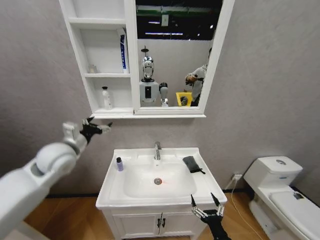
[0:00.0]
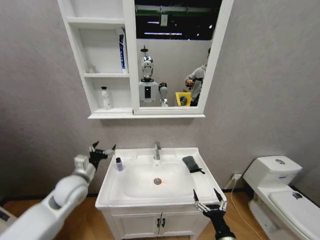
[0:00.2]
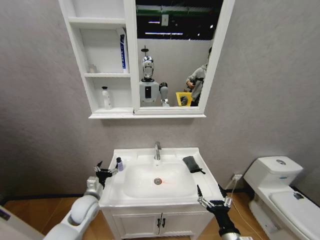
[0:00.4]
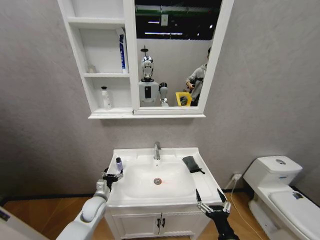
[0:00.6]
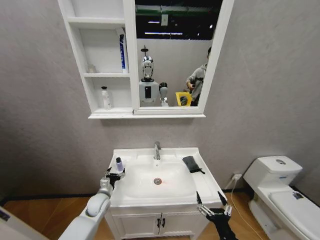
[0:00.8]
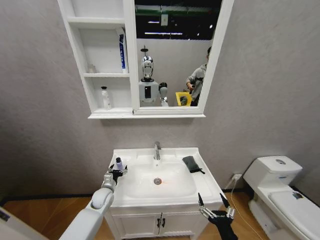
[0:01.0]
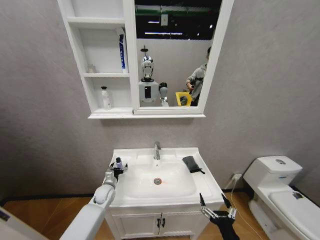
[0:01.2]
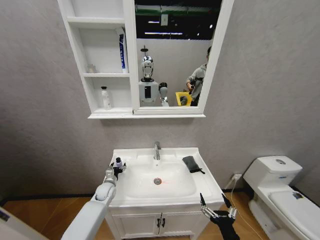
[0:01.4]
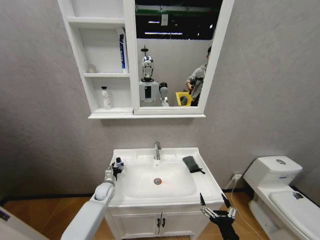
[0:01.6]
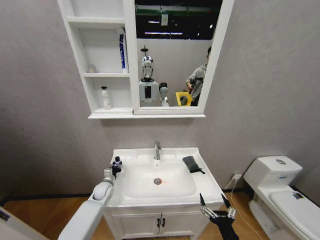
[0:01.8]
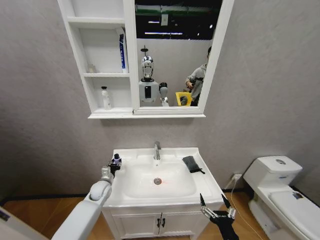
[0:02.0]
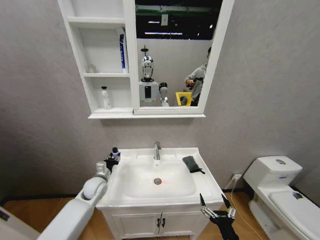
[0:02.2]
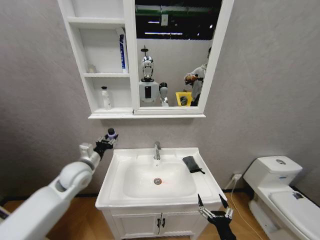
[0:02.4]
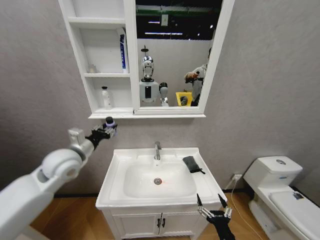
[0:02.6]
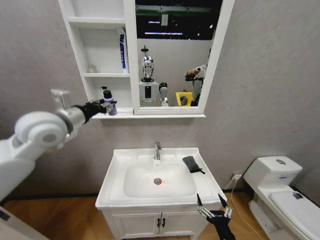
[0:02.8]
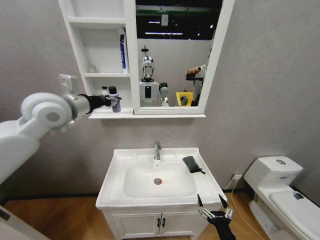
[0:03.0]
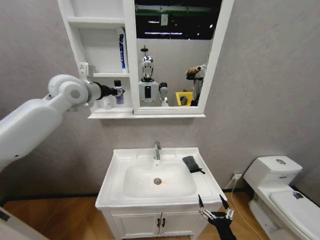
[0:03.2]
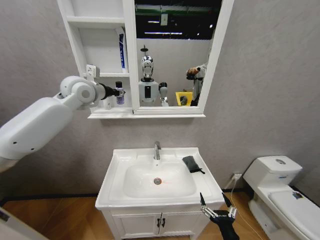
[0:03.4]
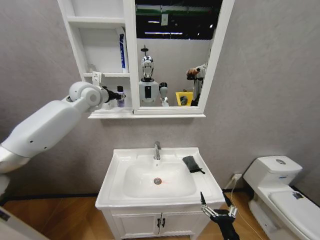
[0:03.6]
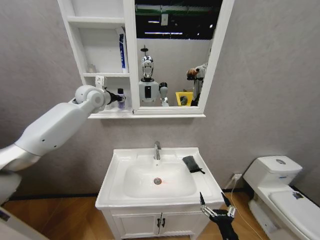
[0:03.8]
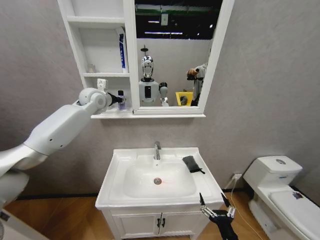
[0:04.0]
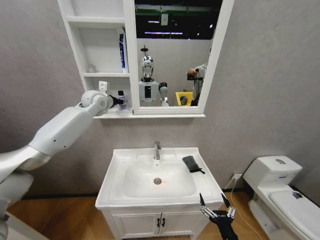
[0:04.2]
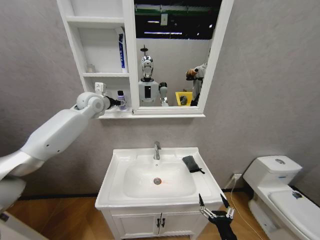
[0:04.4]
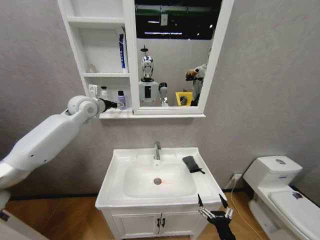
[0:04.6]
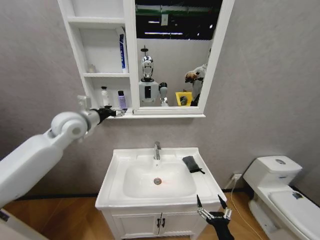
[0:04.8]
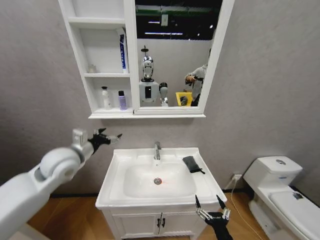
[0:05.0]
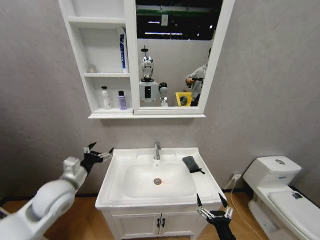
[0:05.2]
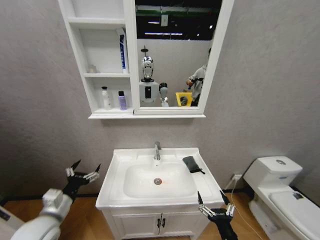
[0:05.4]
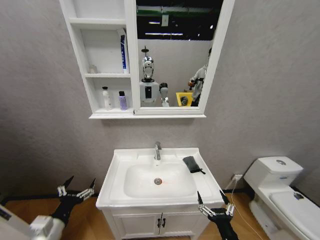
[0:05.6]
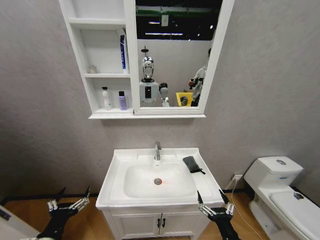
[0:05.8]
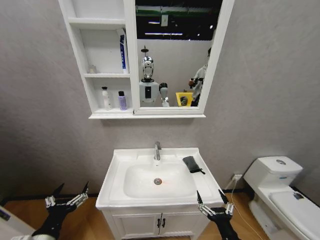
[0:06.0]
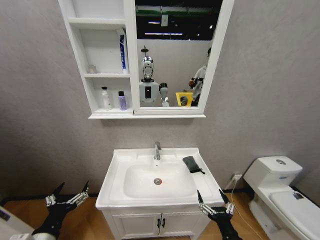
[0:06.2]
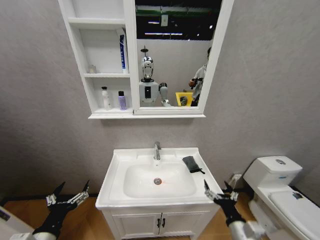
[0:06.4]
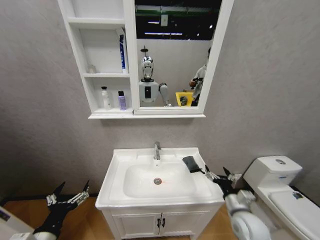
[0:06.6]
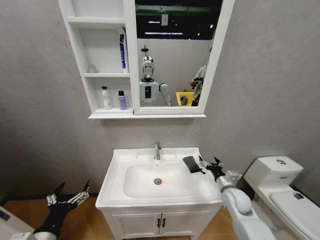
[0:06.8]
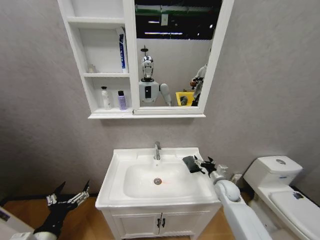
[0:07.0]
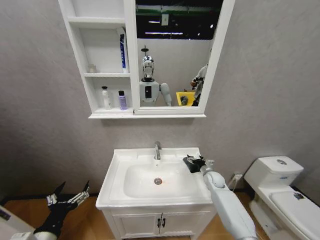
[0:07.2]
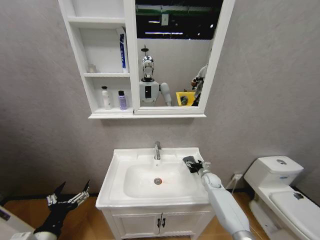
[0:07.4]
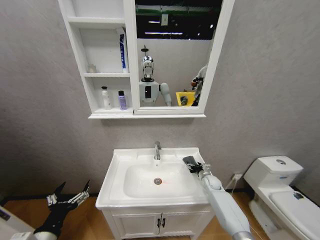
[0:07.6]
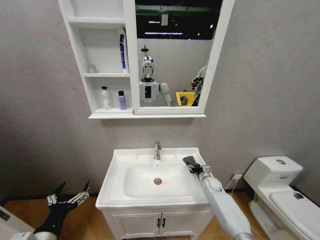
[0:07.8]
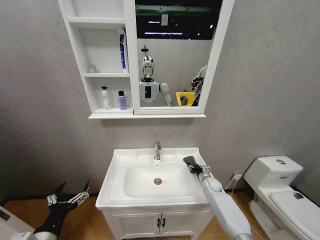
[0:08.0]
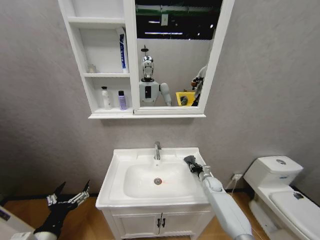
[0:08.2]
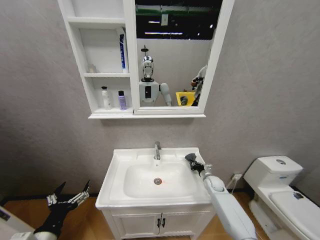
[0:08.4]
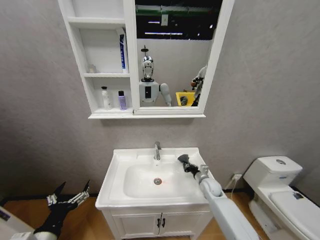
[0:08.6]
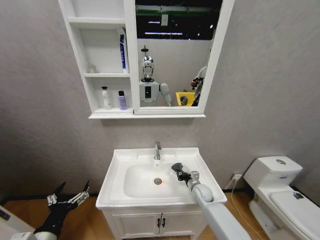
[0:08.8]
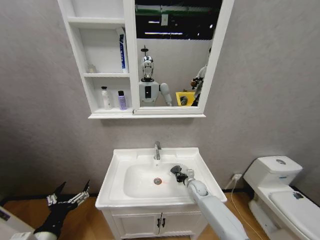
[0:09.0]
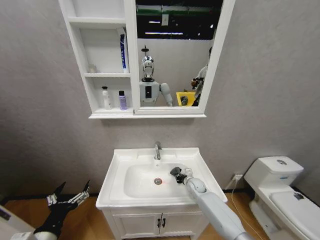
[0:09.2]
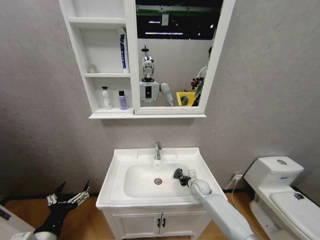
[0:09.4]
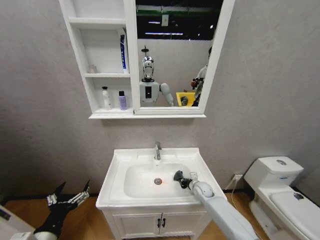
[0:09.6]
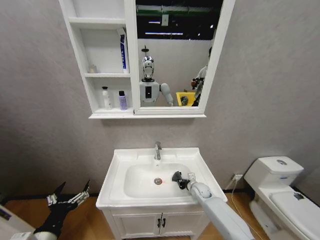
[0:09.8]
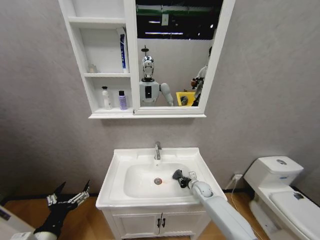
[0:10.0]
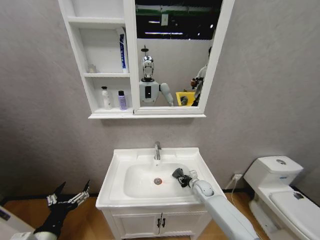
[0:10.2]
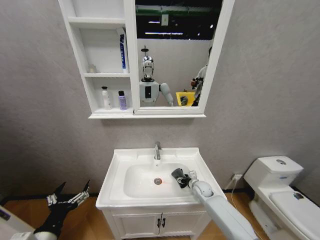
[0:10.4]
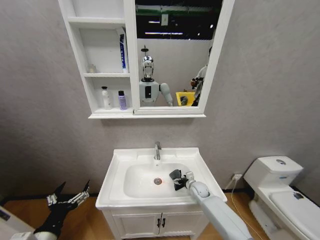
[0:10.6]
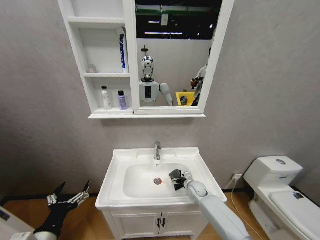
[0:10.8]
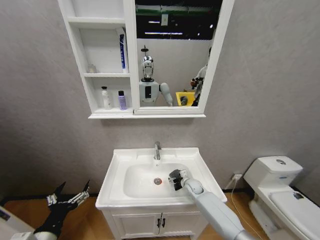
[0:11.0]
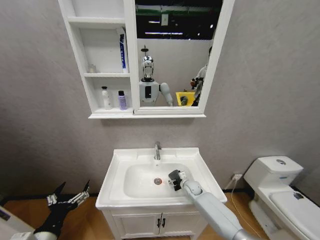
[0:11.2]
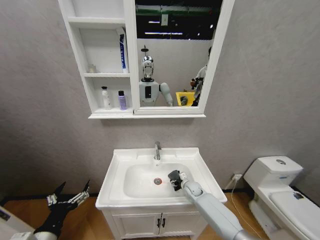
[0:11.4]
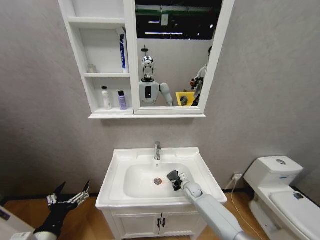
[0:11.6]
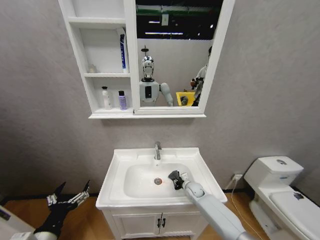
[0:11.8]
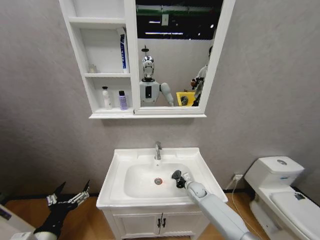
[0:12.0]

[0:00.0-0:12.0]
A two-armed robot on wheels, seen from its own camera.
Task of the whole recording: Move facial cleanser and shampoo from washbasin to cabinet, then wipe washbasin with towel.
0:00.0 to 0:01.6: The left gripper moves downward, roughly 30 cm, and closes up.
0:01.6 to 0:03.0: The left gripper goes about 50 cm upward.
0:03.0 to 0:04.4: The left gripper shifts some 15 cm forward, and opens its fingers.
0:04.4 to 0:06.0: The left gripper moves backward and downward, roughly 50 cm, and opens its fingers.
0:06.0 to 0:07.6: The right gripper is displaced forward by approximately 40 cm.
0:07.6 to 0:09.0: The right gripper heads to the left, covering approximately 10 cm, and closes.
0:09.0 to 0:10.4: The right gripper opens up.
0:10.4 to 0:12.0: The right gripper closes.

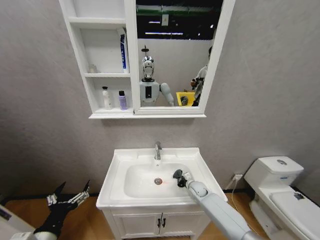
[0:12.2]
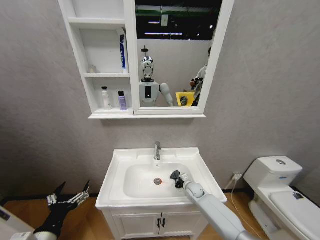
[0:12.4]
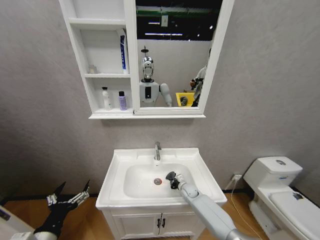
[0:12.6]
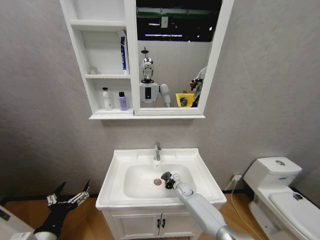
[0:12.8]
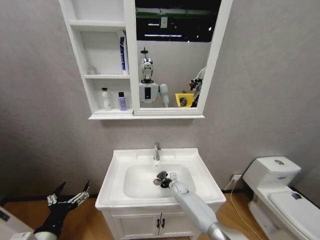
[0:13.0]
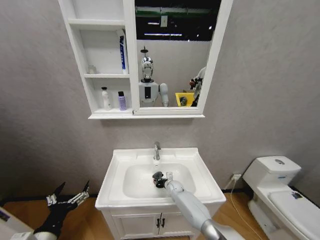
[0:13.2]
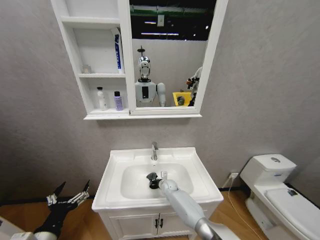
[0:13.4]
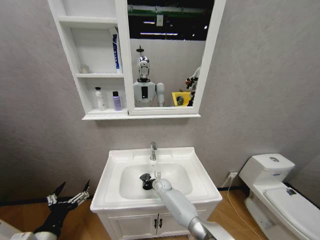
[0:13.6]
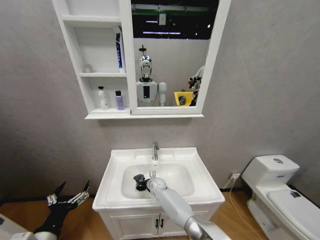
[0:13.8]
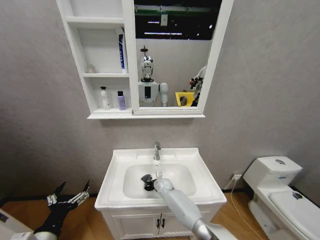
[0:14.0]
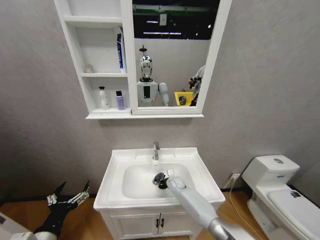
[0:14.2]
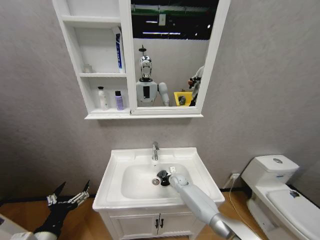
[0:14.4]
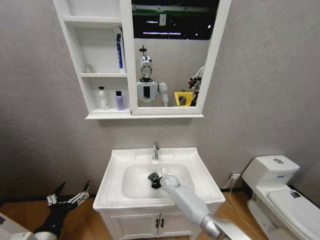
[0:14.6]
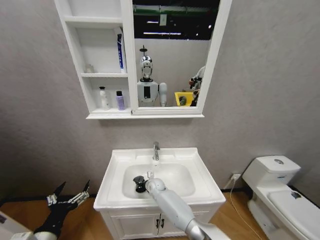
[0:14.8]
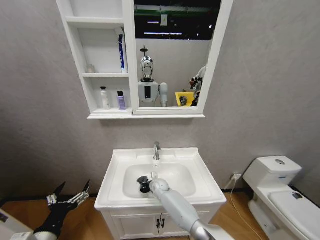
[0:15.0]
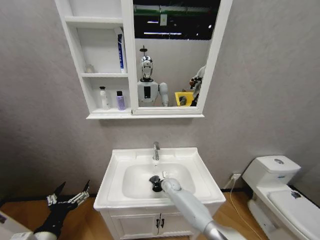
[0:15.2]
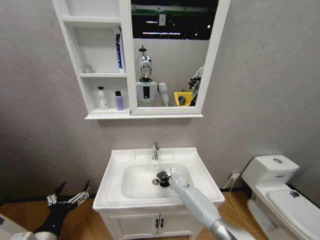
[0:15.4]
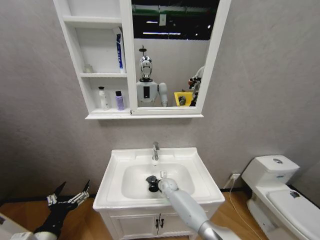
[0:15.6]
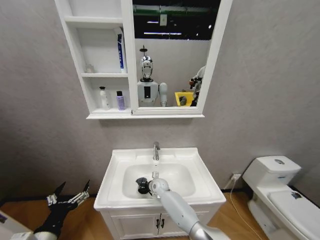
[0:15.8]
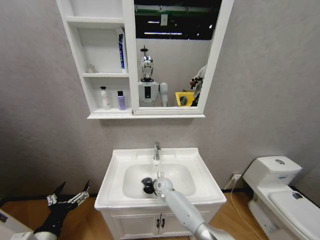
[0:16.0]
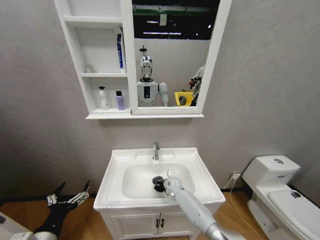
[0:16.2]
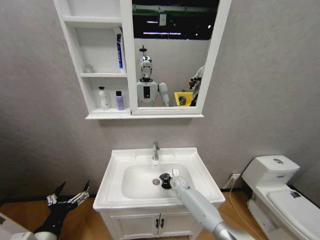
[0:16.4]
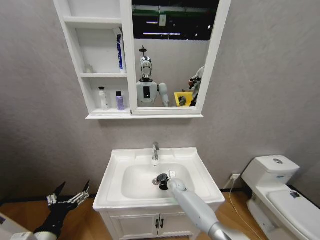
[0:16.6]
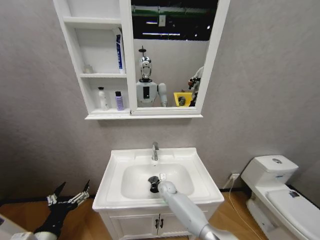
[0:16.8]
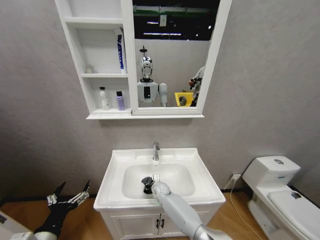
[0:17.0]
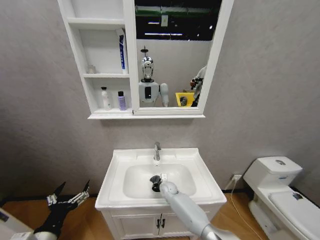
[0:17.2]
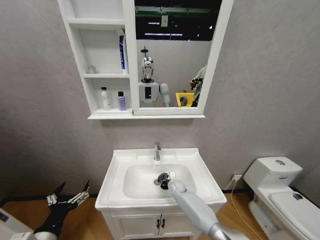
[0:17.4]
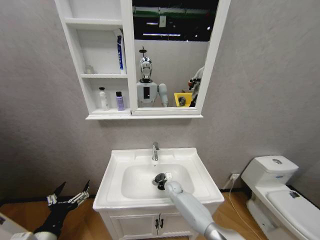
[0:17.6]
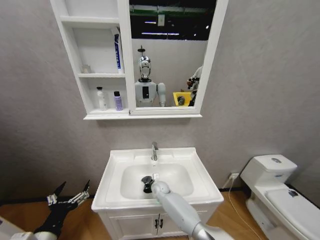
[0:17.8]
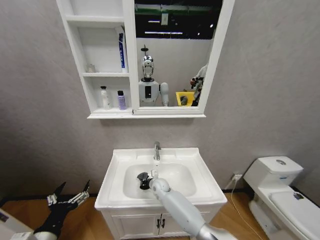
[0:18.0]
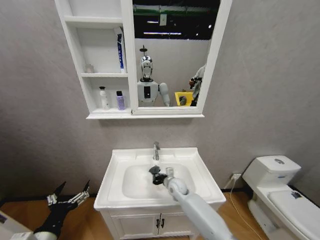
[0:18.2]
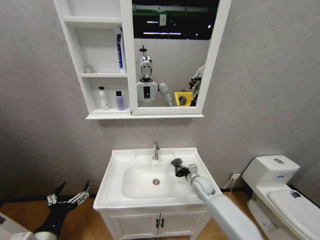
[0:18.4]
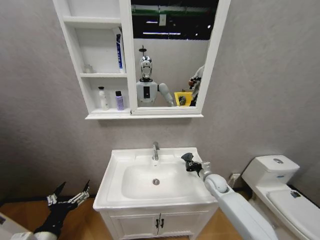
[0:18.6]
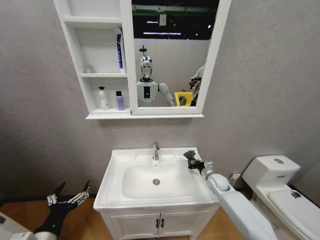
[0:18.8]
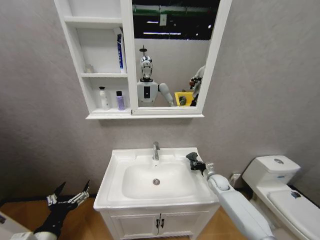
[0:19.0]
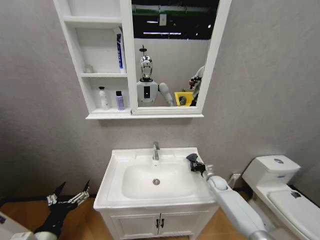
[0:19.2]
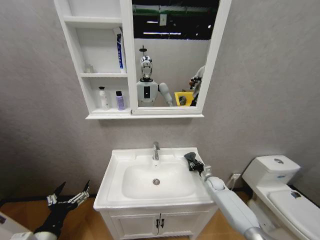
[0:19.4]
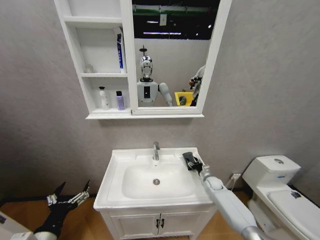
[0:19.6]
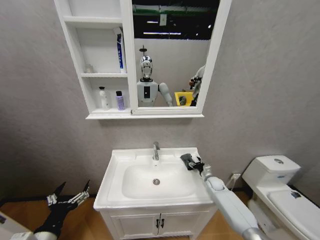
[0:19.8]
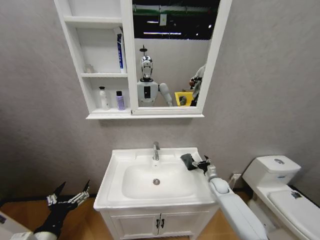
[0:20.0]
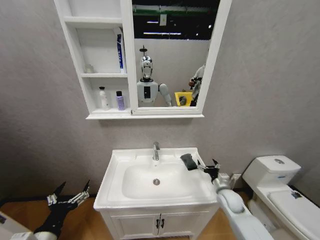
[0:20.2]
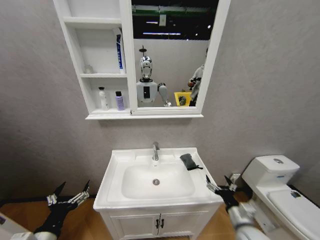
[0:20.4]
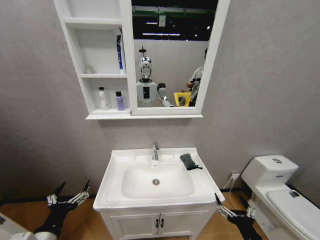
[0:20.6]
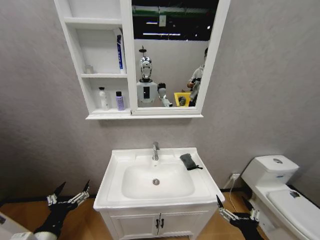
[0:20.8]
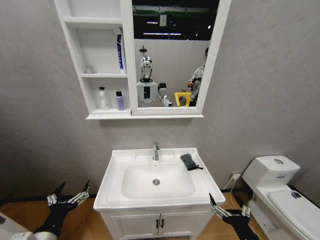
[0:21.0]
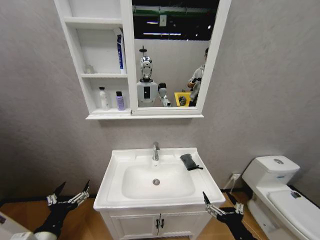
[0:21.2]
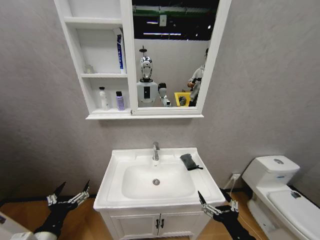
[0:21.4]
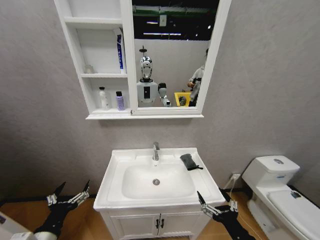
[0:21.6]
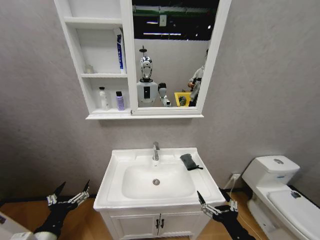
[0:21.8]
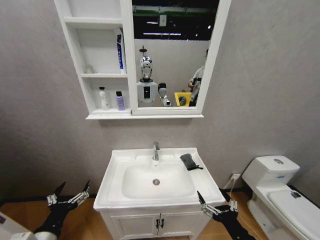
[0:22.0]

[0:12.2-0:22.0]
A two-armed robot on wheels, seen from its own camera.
Task of the whole recording: Move facial cleanser and shampoo from washbasin to cabinet, then wipe washbasin with towel.
0:12.2 to 0:13.6: The right gripper goes roughly 20 cm to the left.
0:13.6 to 0:15.0: The right gripper travels to the right and back again, roughly 10 cm each way.
0:15.0 to 0:16.4: The right gripper swings left and right, some 10 cm each way, with 2 reversals.
0:16.4 to 0:17.8: The right gripper goes left and right, approximately 10 cm each way, reversing 2 times.
0:17.8 to 0:19.2: The right gripper moves to the right, some 35 cm.
0:19.2 to 0:20.6: The right gripper is displaced backward by about 40 cm, and opens its fingers.
0:20.6 to 0:22.0: The right gripper is displaced upward by some 5 cm.
